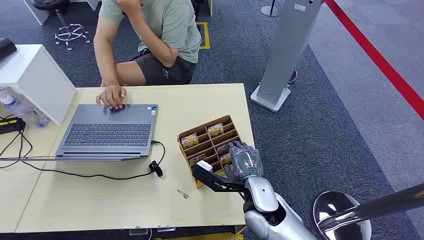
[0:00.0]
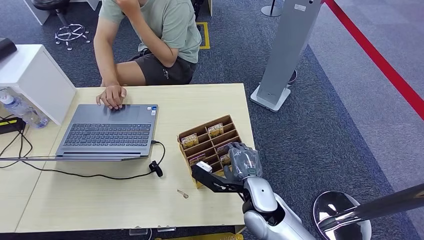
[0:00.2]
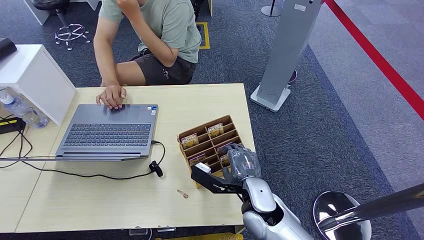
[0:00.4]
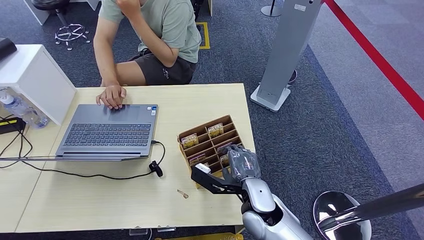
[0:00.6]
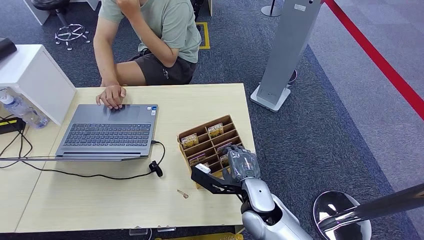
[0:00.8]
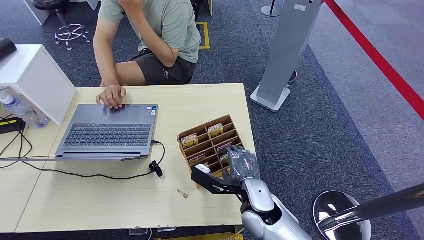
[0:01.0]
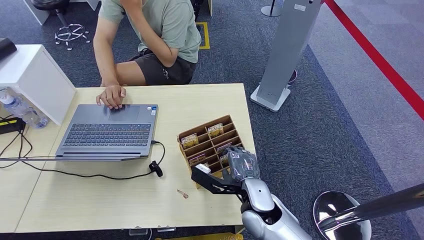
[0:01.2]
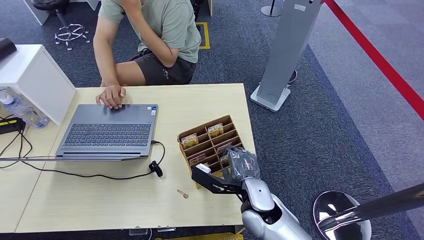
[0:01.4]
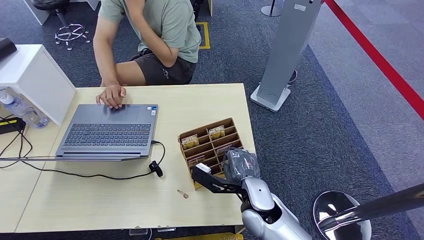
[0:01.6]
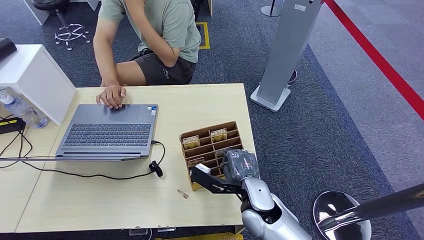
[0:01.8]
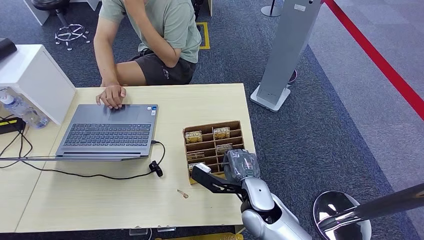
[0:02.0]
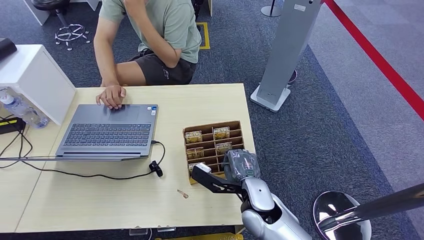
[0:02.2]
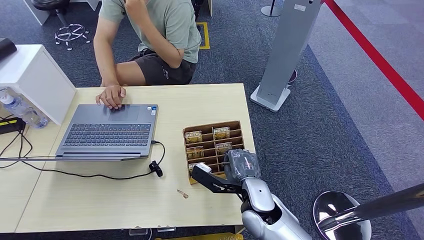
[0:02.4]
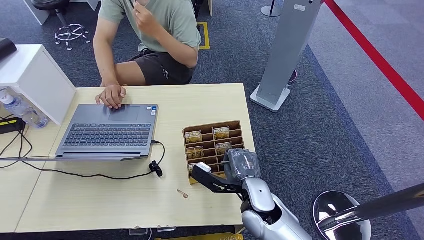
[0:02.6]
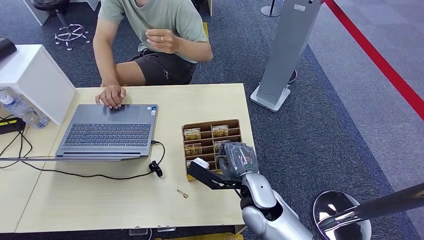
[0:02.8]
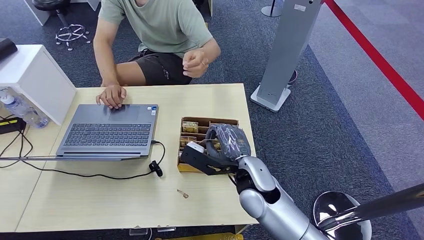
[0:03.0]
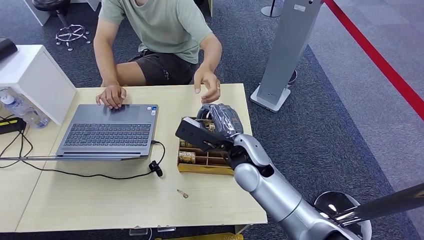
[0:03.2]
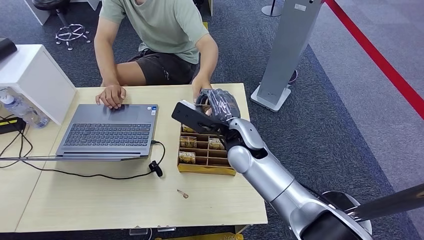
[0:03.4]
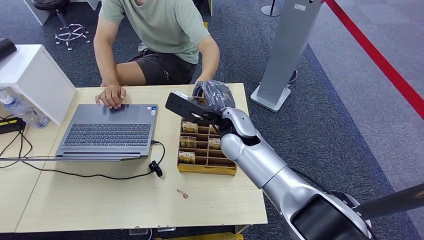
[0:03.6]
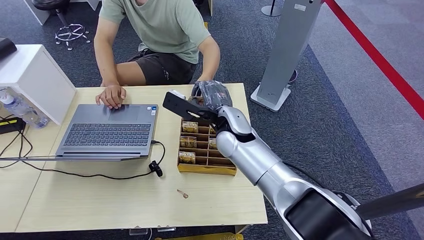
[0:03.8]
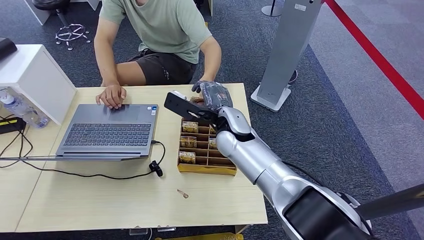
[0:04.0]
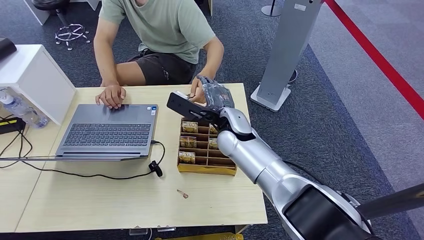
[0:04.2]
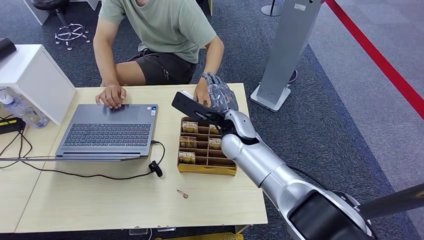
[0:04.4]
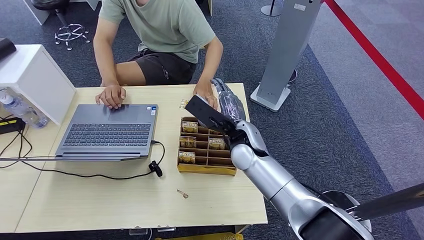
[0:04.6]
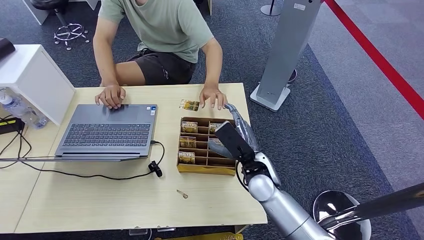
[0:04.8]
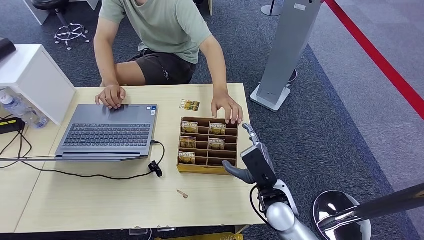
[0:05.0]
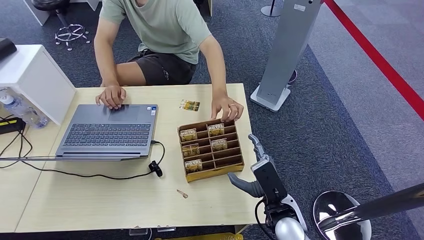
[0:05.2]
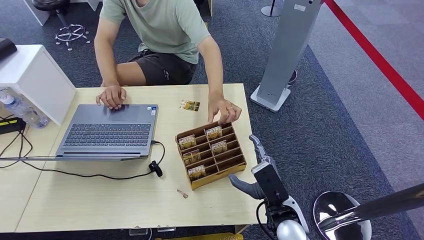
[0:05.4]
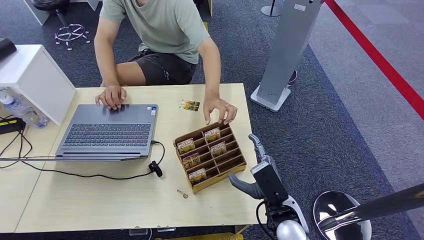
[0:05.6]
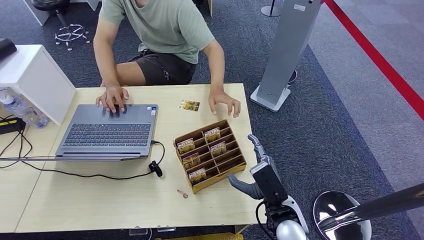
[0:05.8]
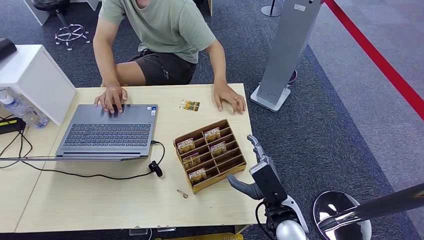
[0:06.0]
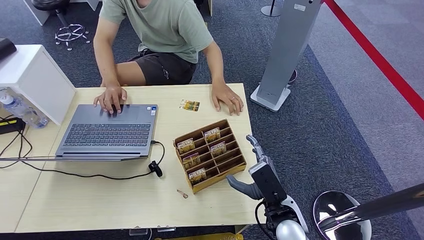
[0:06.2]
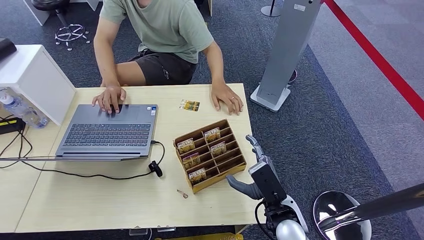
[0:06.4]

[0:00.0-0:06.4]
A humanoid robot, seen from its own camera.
Step, 0:00.0 to 0:02.4: Pick up the key card from the card box.
Step, 0:02.8 to 0:06.4: Hand the key card to the target.
0:01.6 to 0:03.2: The right hand shifts about 10 cm upward and forward.
0:03.2 to 0:04.8: The right hand goes approximately 5 cm downward.
0:04.8 to 0:06.4: The right hand shifts about 10 cm backward and to the right.
